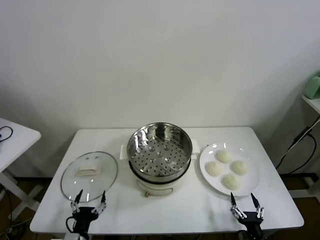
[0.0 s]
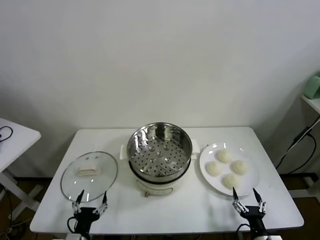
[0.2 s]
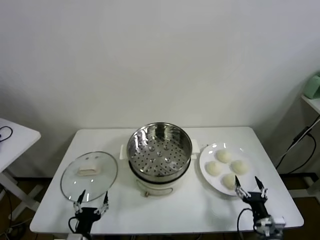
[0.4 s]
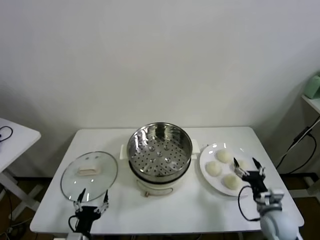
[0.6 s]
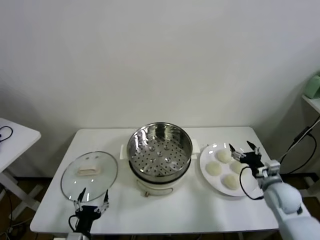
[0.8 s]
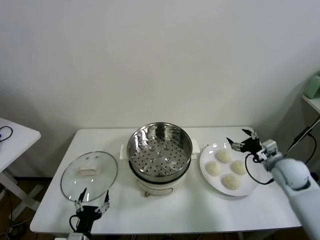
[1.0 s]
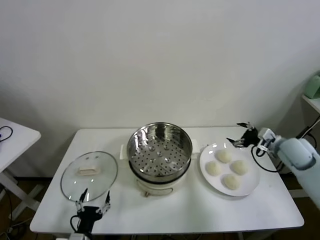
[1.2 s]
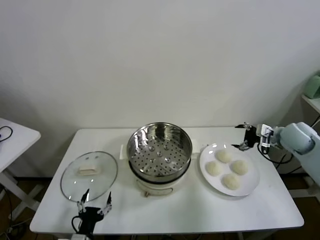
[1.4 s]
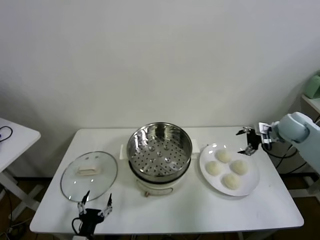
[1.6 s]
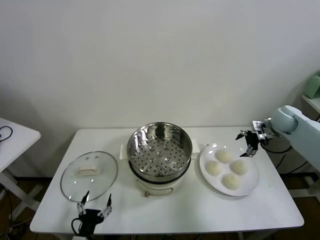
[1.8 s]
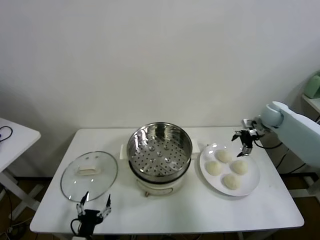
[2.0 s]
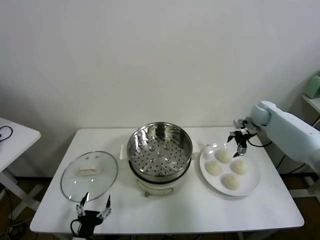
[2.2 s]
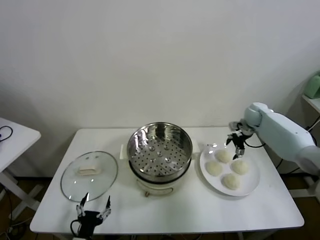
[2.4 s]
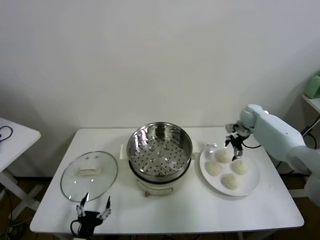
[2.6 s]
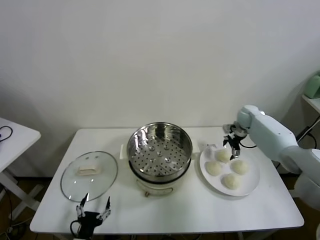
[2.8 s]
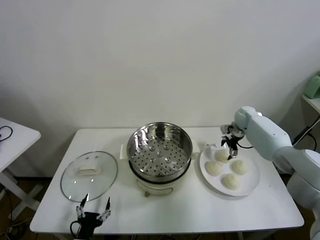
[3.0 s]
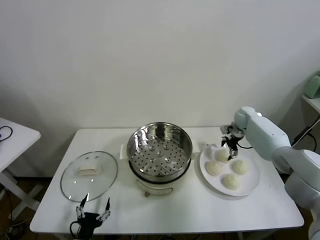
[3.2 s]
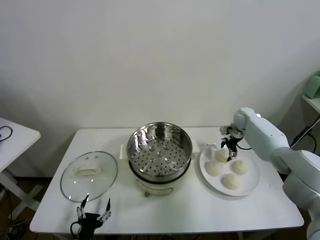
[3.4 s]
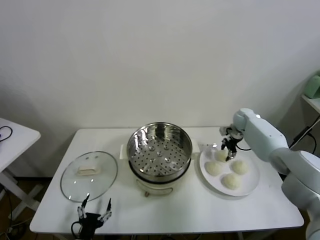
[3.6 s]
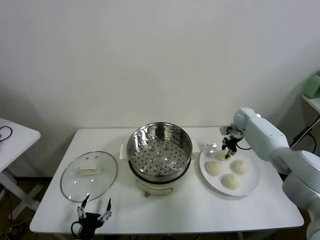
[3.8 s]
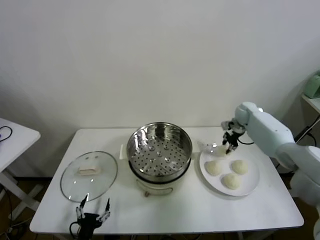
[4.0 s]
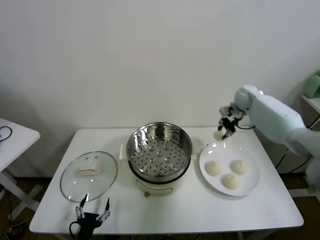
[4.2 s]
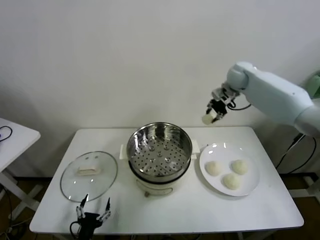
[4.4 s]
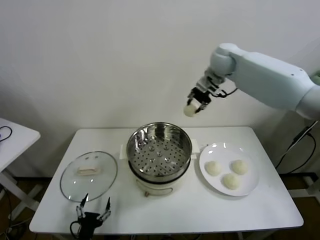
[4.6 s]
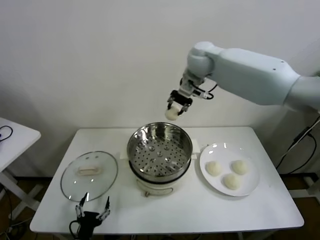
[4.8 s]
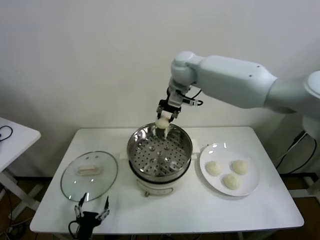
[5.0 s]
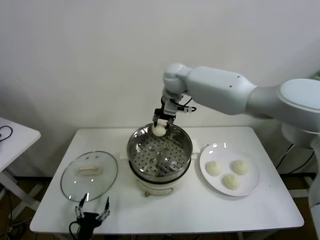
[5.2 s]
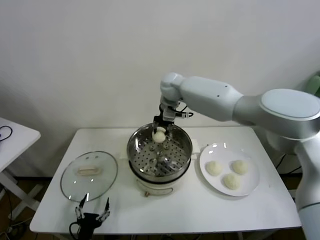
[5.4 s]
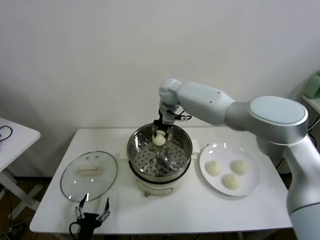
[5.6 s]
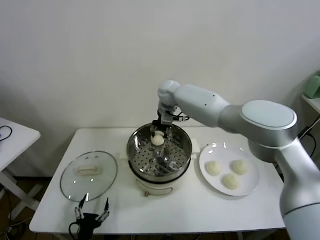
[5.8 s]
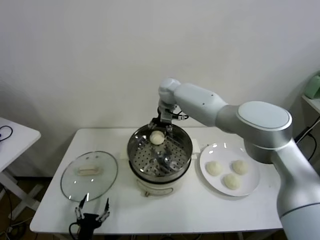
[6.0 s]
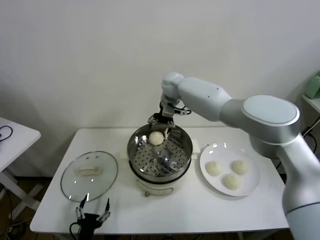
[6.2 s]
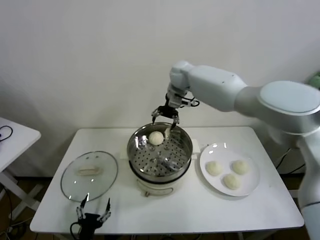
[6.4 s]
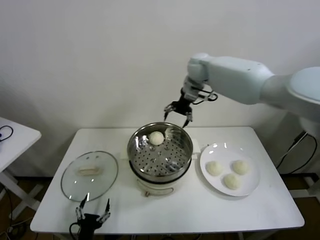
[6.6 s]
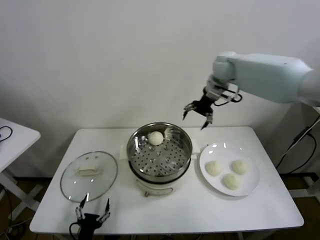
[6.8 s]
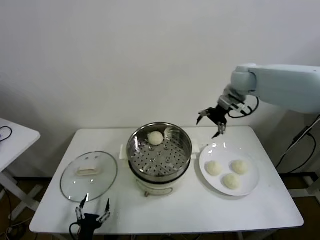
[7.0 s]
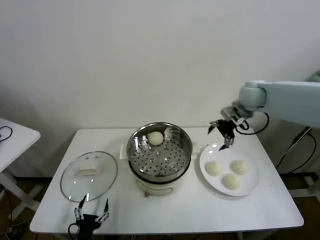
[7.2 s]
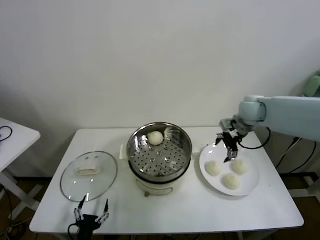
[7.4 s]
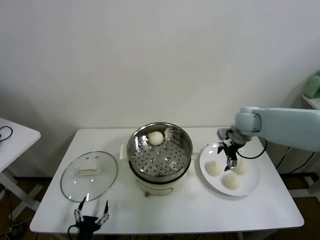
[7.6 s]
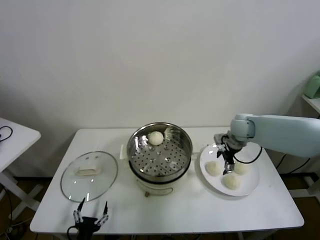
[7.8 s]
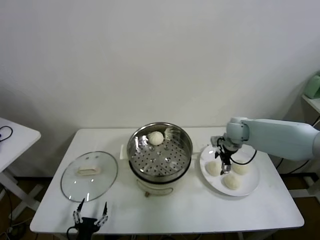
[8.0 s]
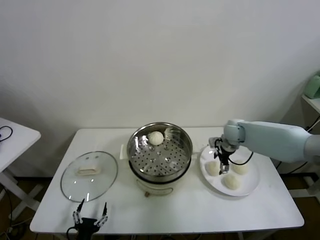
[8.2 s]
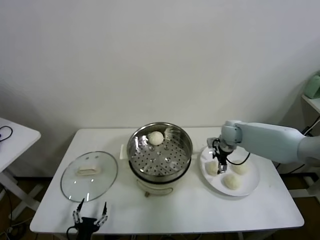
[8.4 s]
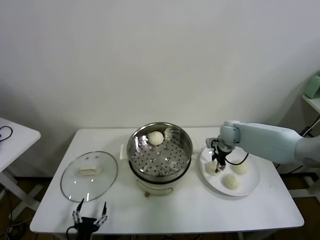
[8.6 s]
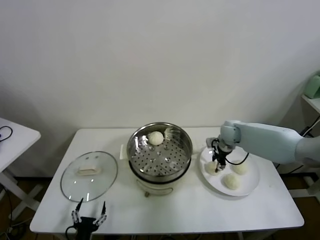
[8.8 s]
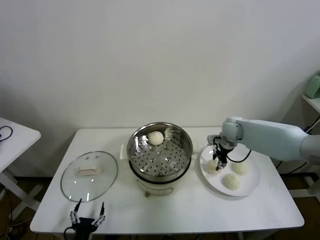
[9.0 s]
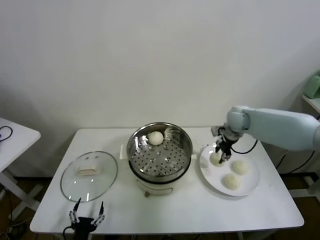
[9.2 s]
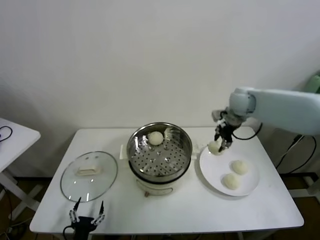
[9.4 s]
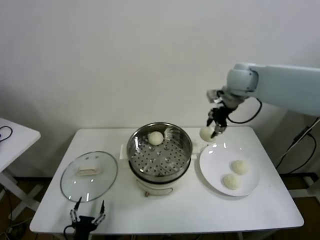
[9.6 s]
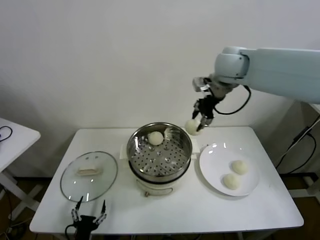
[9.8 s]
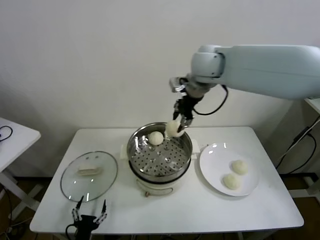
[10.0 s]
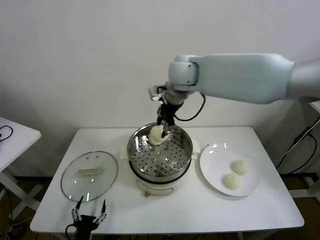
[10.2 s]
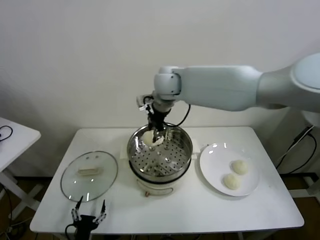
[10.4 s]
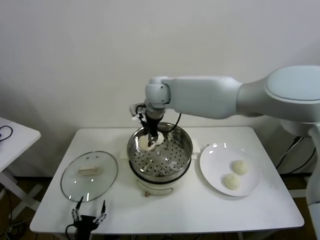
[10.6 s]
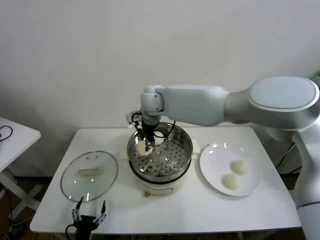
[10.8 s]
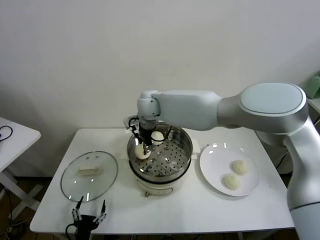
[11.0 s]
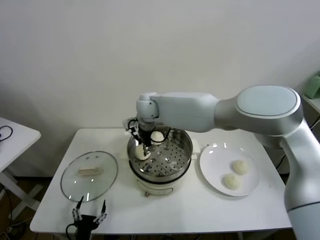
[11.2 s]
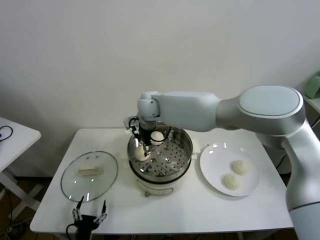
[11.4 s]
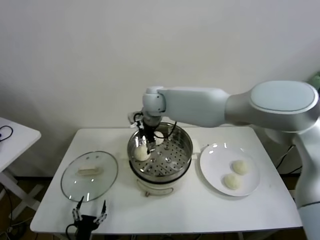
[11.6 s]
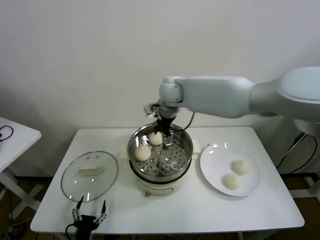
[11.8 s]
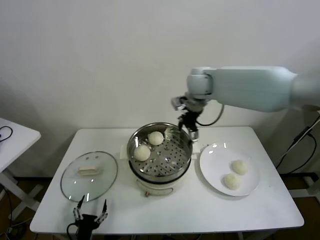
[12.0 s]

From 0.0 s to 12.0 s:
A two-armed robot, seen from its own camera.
Task of the whole recording: take steamed baozi put them in steamer.
Step, from 0.0 s to 3.6 s: Grasp the baozi in the plate with right gripper.
Step, from 3.8 s to 6.0 s: Place the baozi on the steamer with right gripper.
Step, from 6.4 s to 8.8 s: Grasp the baozi in the plate with right gripper.
Step, from 9.0 s to 11.4 s: Place the baozi on the steamer with right gripper.
From 1.6 s to 3.0 s: The right gripper shifts approximately 15 cm forward, downward and to the left.
From 3.0 s to 4.4 s: The right gripper moves upward and to the left, approximately 25 cm, and closes up.
From 4.4 s to 6.0 s: The right gripper is displaced to the left and downward by approximately 25 cm, and opens its fingers.
From 6.0 s to 7.6 s: The right gripper shifts approximately 30 cm to the right and backward.
From 7.6 s to 9.0 s: The right gripper closes up.
From 9.0 s to 10.4 s: The right gripper shifts approximately 35 cm to the left and upward.
From 10.4 s to 12.0 s: The right gripper moves to the right, some 15 cm, and opens.

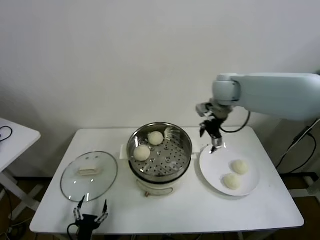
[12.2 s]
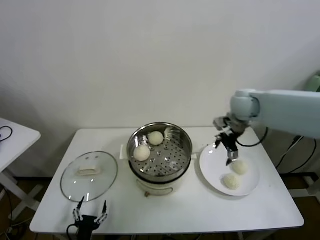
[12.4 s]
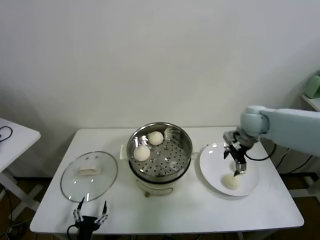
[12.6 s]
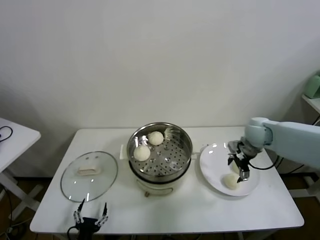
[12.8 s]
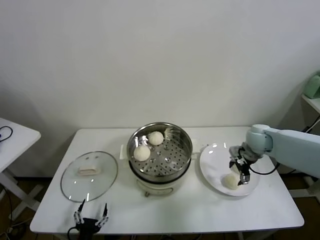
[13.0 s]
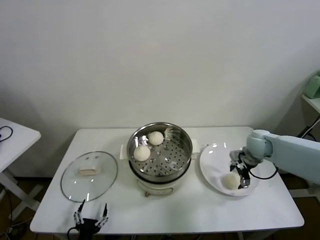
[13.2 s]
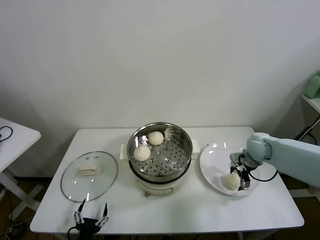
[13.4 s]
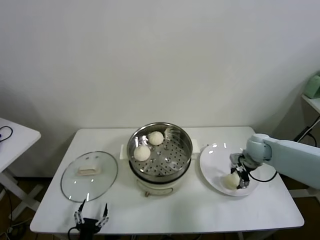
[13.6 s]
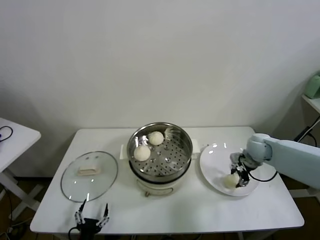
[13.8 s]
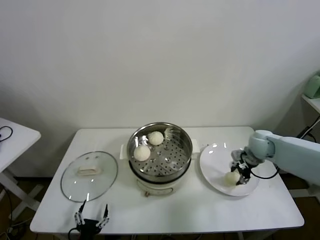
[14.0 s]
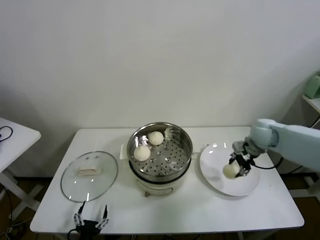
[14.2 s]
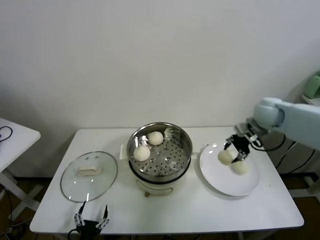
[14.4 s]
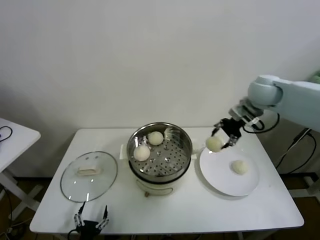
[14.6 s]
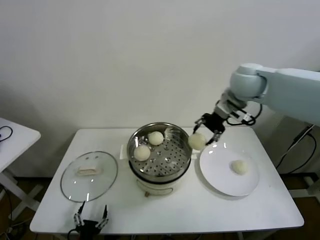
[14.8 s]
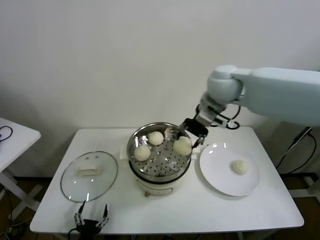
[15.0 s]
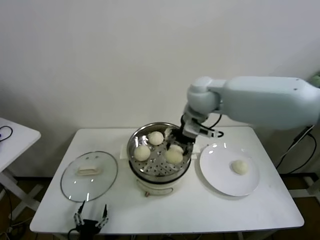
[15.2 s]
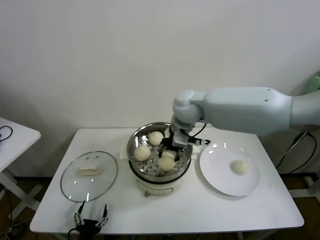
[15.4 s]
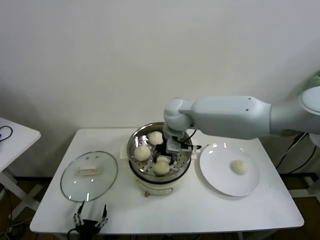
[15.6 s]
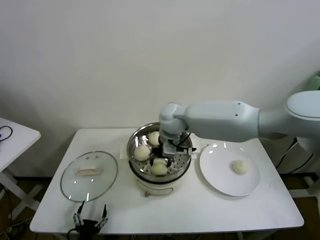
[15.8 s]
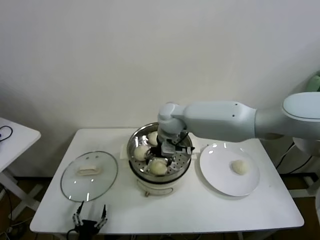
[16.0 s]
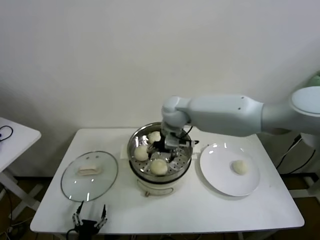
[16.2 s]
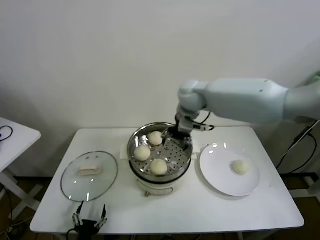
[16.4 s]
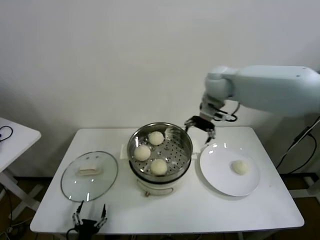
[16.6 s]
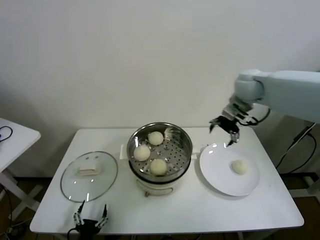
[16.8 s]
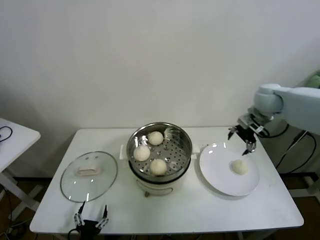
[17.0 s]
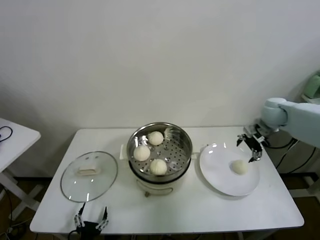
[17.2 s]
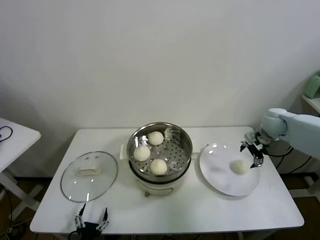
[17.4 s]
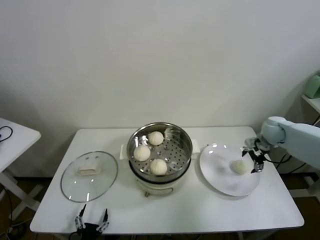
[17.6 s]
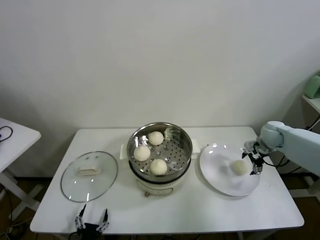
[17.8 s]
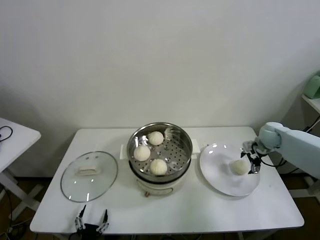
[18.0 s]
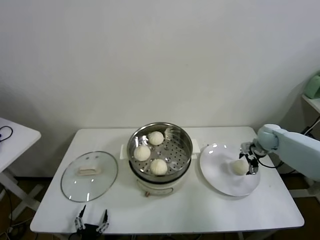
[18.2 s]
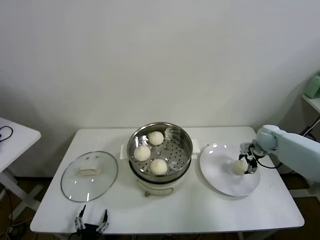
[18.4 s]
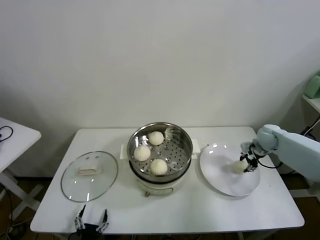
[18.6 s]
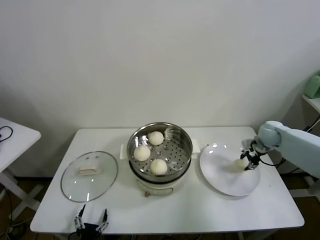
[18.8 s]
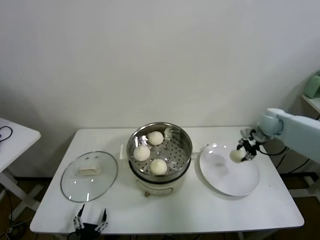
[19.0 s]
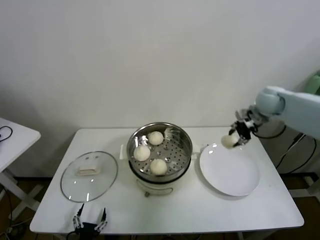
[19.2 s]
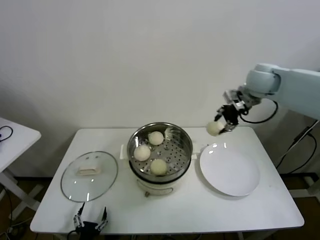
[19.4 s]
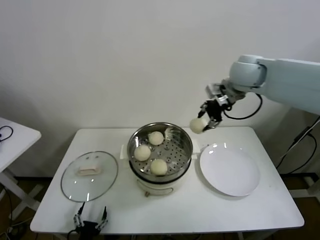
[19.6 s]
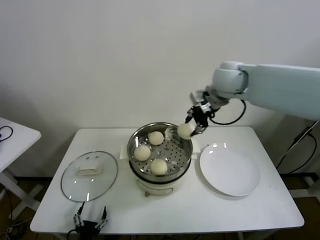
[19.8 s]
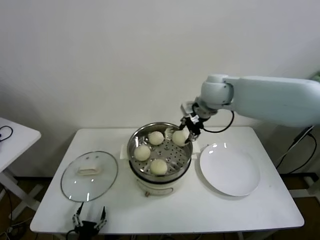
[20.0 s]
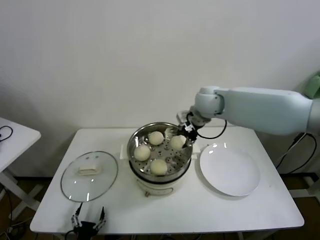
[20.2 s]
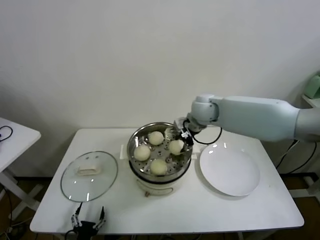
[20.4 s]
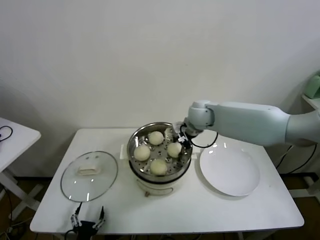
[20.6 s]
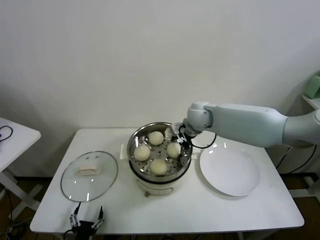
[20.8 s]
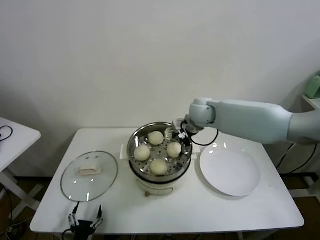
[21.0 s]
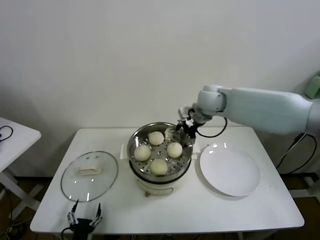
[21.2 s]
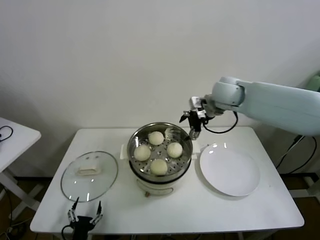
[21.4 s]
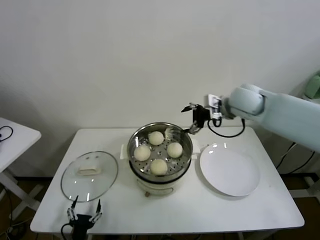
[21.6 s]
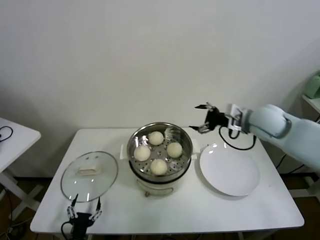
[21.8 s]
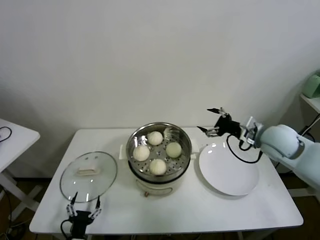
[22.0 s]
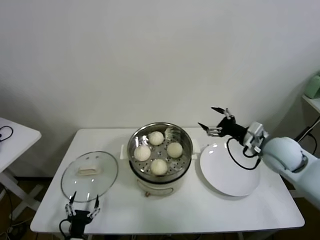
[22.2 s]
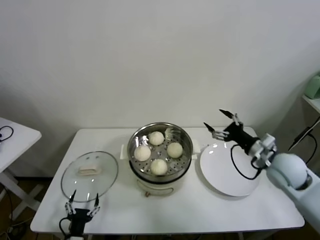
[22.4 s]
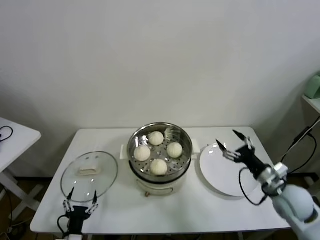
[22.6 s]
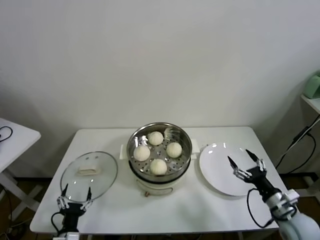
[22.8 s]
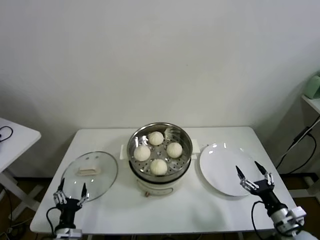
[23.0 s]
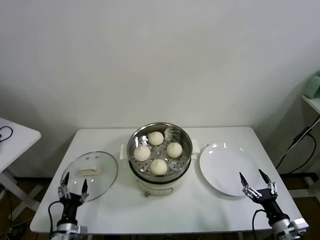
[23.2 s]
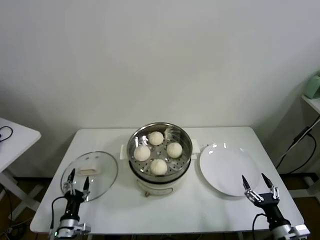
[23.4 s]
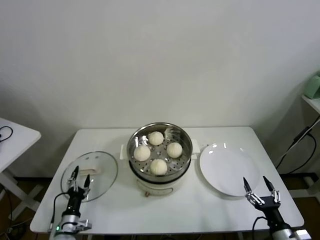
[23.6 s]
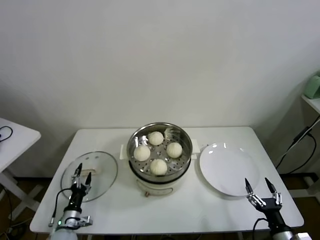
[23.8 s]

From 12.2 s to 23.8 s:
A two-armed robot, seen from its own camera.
Task of the whole recording: take steamed baozi put them in steamer.
Step, from 12.2 s to 13.6 s: Grasp the baozi in the plate with right gripper.
Step, from 14.0 s to 16.0 s: Place the baozi on the steamer with right gripper.
Step, from 16.2 s to 18.4 s: Grasp the baozi in the plate with right gripper.
Step, from 18.8 s to 21.0 s: Place the baozi on the steamer with right gripper.
From 12.2 s to 13.6 s: The right gripper heads downward and to the right, covering some 25 cm, and closes up.
From 13.6 s to 15.0 s: The right gripper is displaced upward and to the left by approximately 35 cm.
From 15.0 s to 16.6 s: The right gripper shifts approximately 5 cm forward, goes to the left and returns, roughly 10 cm each way, and opens.
From 16.6 s to 18.0 s: The right gripper shifts about 30 cm to the right and downward.
From 18.0 s to 19.4 s: The right gripper travels upward and to the left by approximately 30 cm, and closes its fingers.
From 19.4 s to 21.0 s: The right gripper moves to the left and downward, some 20 cm, and opens.
From 21.0 s to 22.4 s: The right gripper moves to the right and backward, some 30 cm.
From 22.4 s to 23.8 s: The left gripper goes some 10 cm forward and to the left. The right gripper shifts about 30 cm backward and downward.
